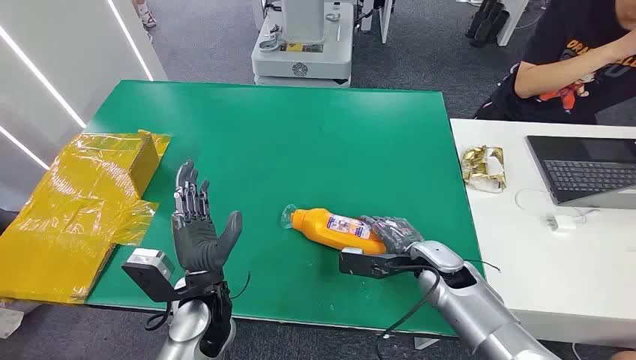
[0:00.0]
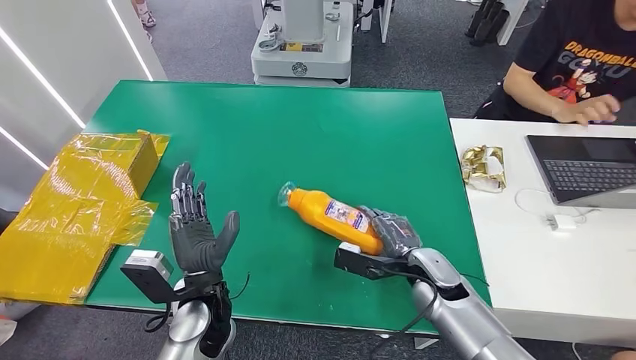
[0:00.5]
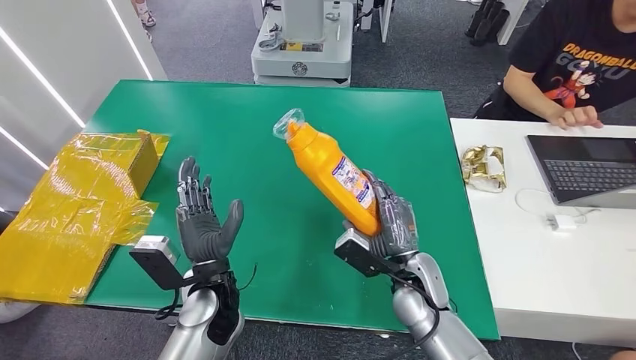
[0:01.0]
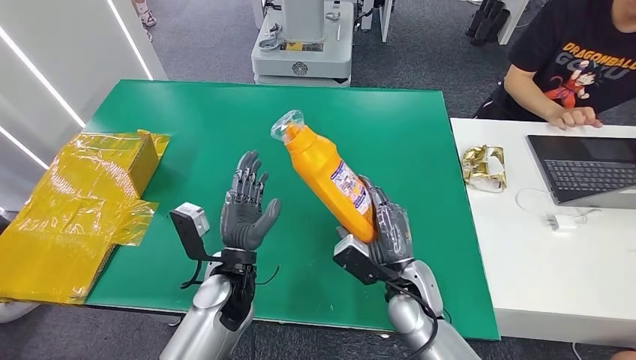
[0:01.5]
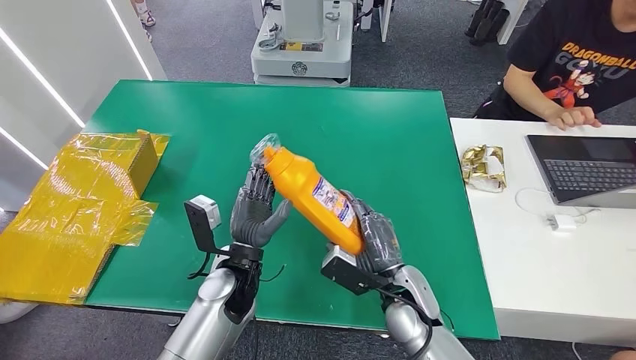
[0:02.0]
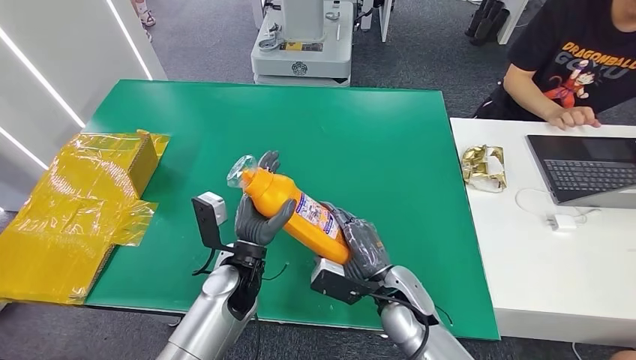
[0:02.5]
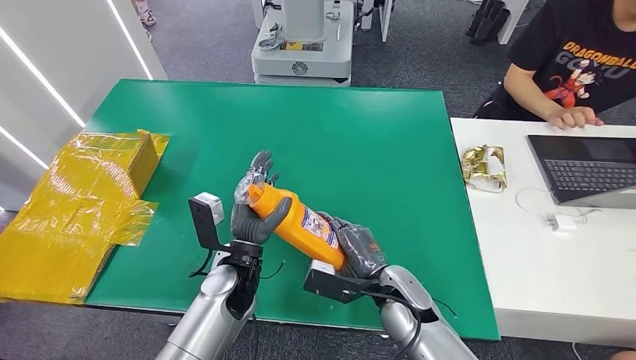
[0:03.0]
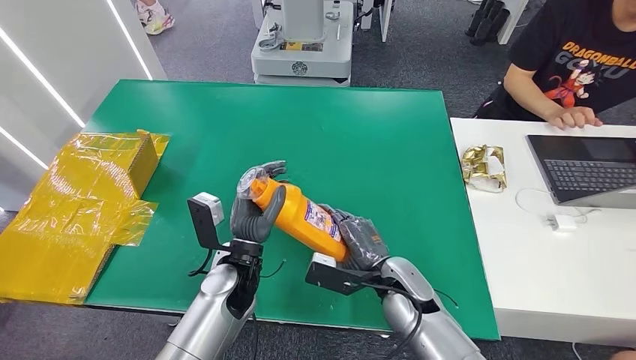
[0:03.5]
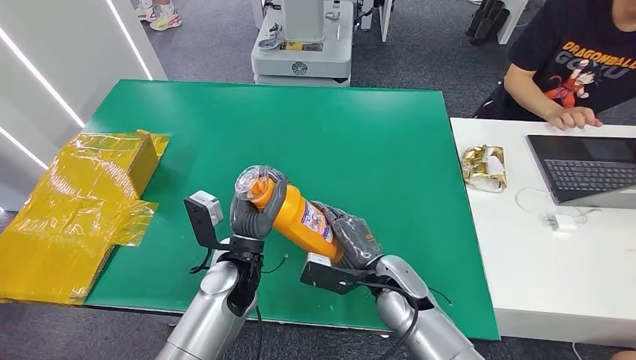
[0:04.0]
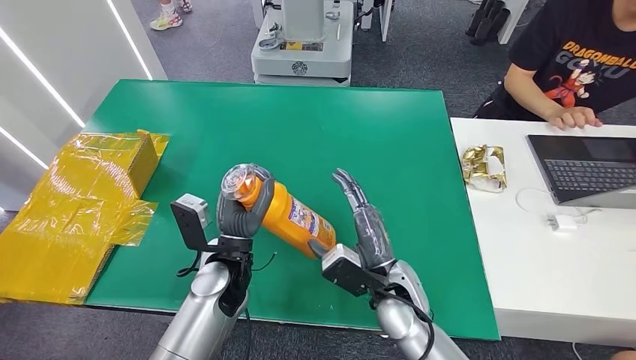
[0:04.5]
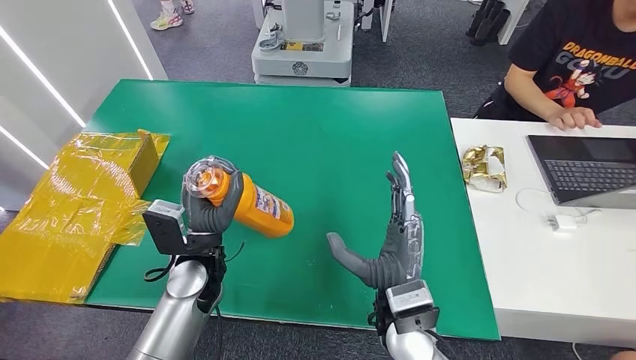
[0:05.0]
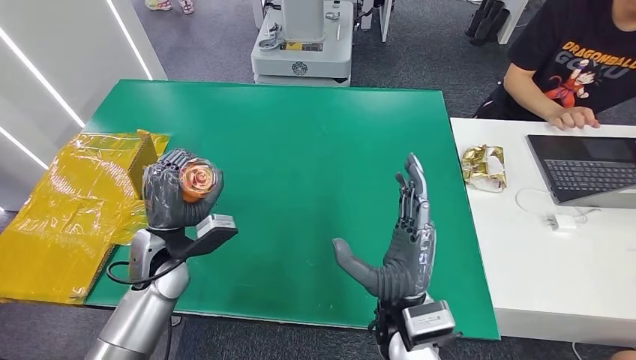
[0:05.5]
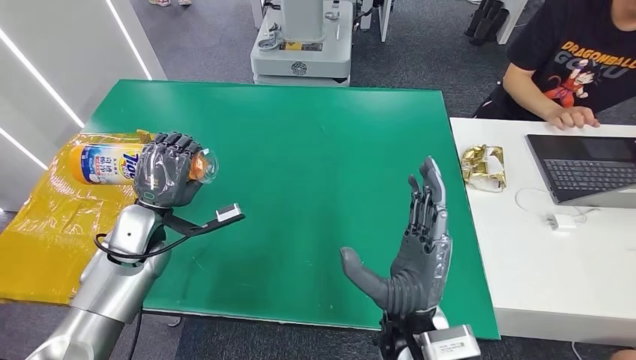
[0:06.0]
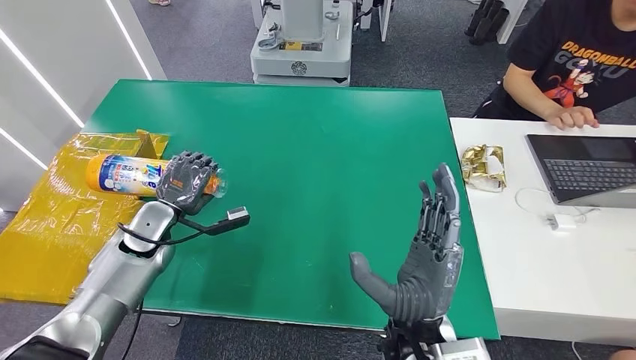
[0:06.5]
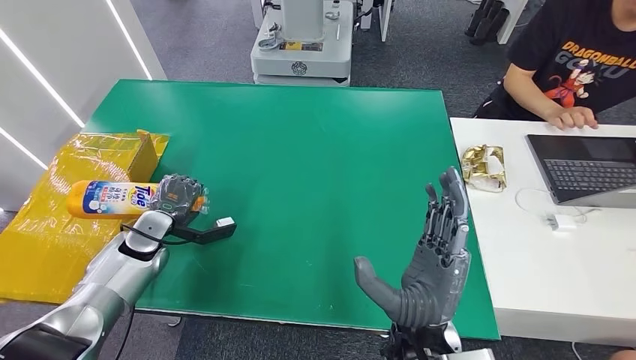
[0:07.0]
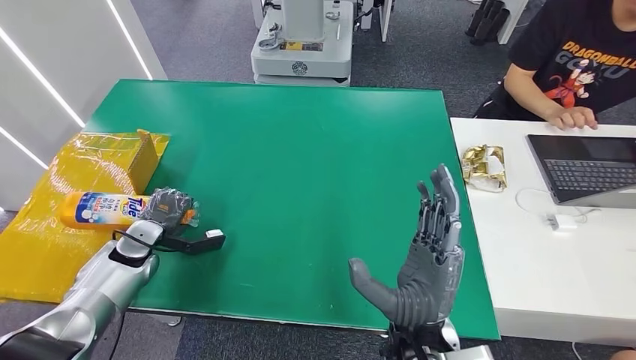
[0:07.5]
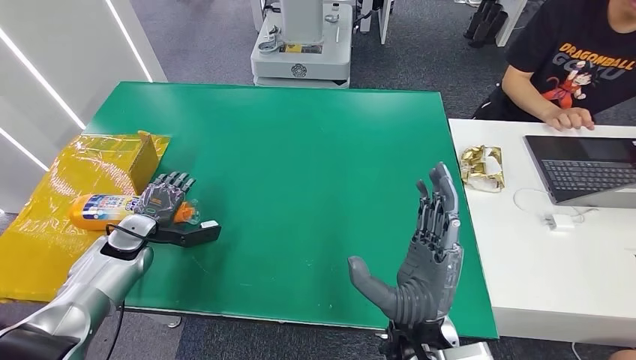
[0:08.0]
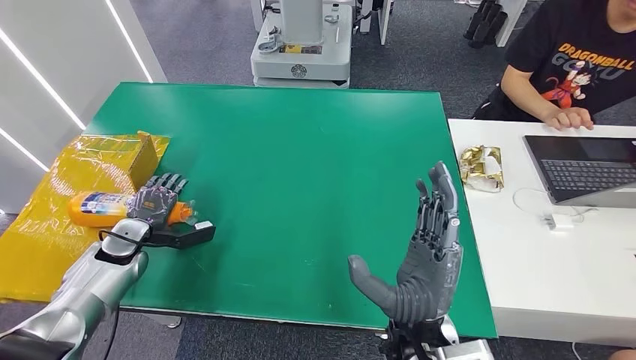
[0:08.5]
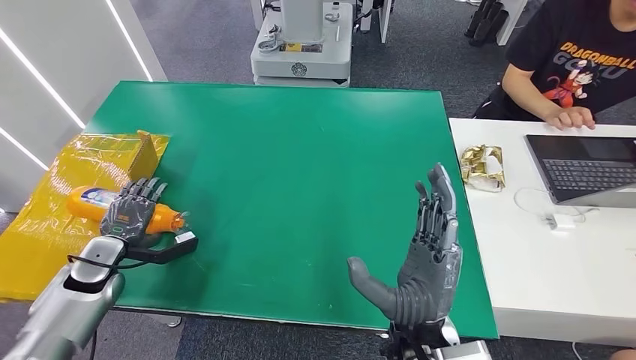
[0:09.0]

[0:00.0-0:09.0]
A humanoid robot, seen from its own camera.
Step, 0:00.0 to 0:02.0: Pick up the bottle from the table.
Step, 0:02.5 to 0:09.0: Turn the bottle to the front side.
0:02.0 to 0:04.5: There are only small adjustments of the hands.
0:04.5 to 0:07.0: The left hand shifts roughly 20 cm to the left. Meanwhile the right hand heads backward and upward, covering some 10 cm.
0:07.0 to 0:09.0: The left hand is displaced backward and to the left by approximately 10 cm.

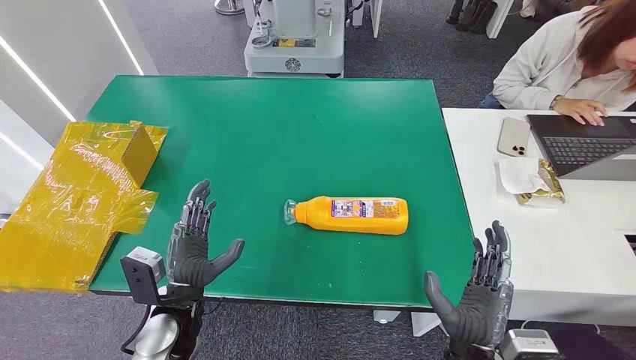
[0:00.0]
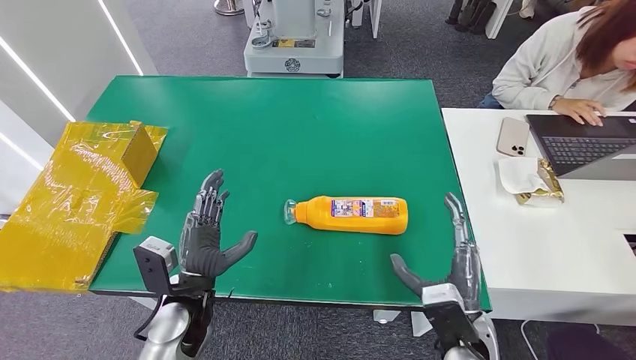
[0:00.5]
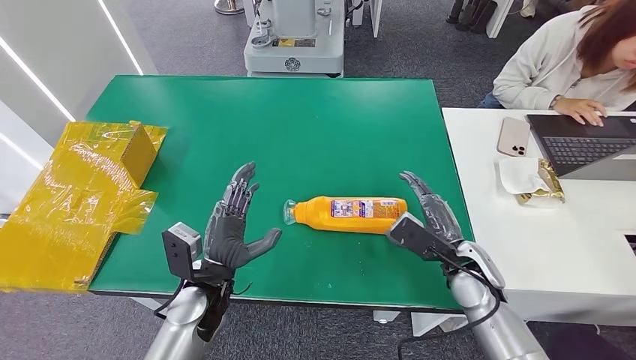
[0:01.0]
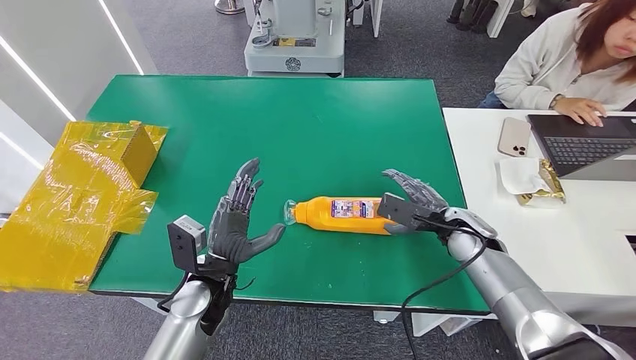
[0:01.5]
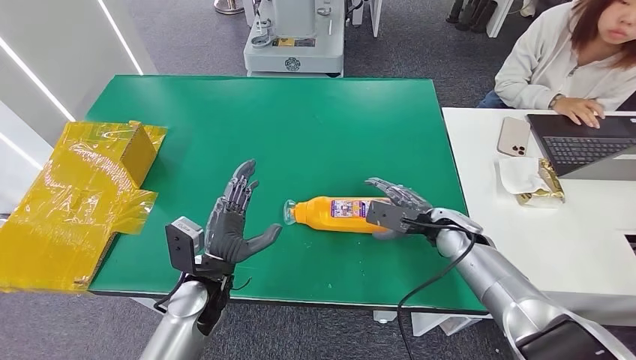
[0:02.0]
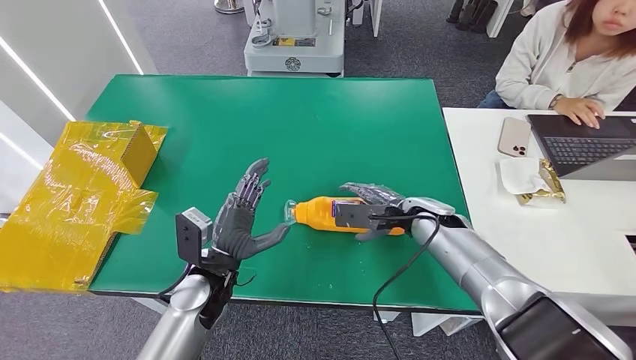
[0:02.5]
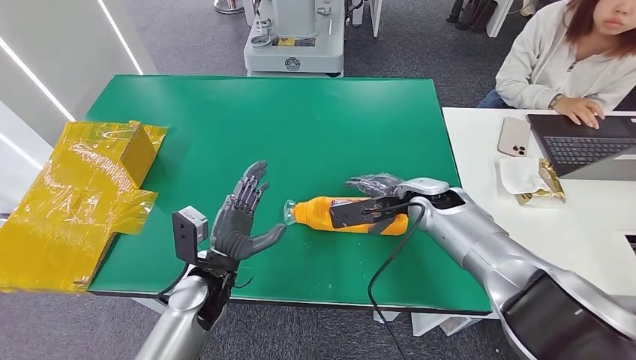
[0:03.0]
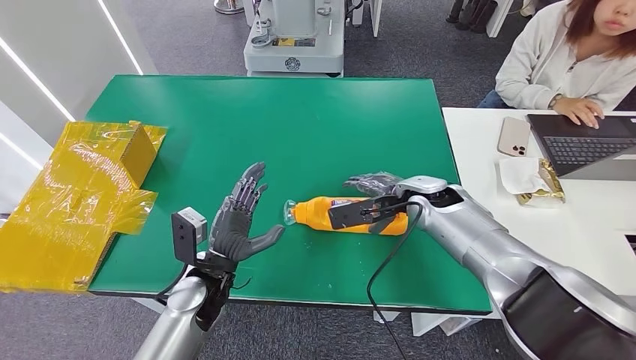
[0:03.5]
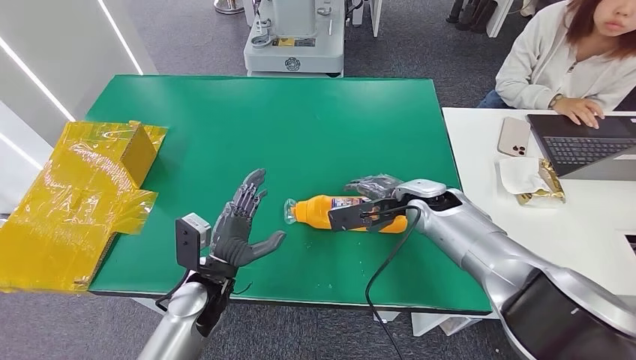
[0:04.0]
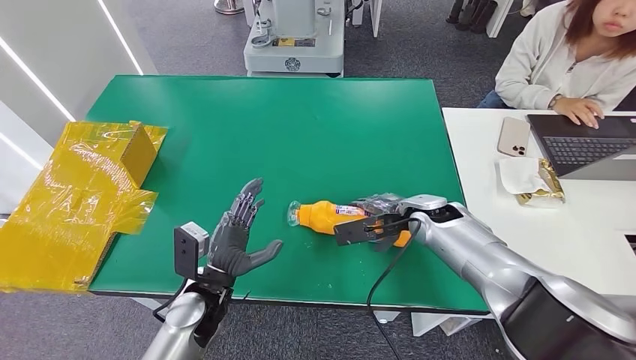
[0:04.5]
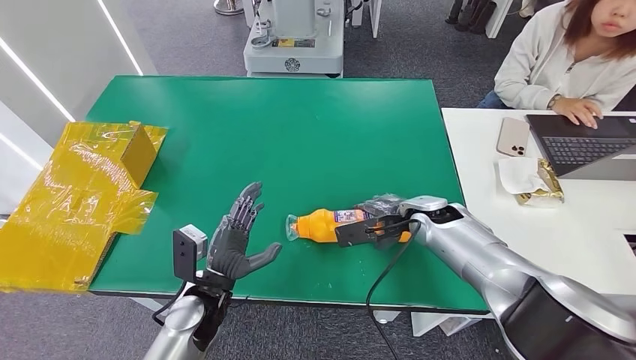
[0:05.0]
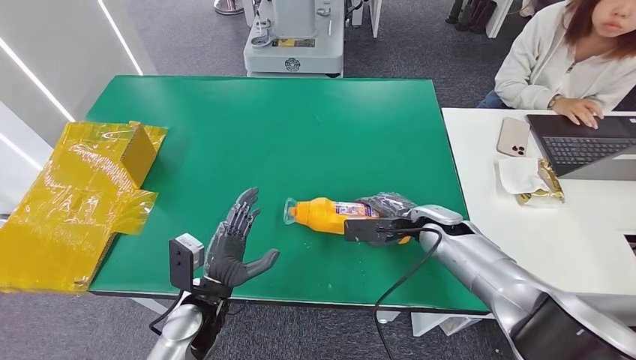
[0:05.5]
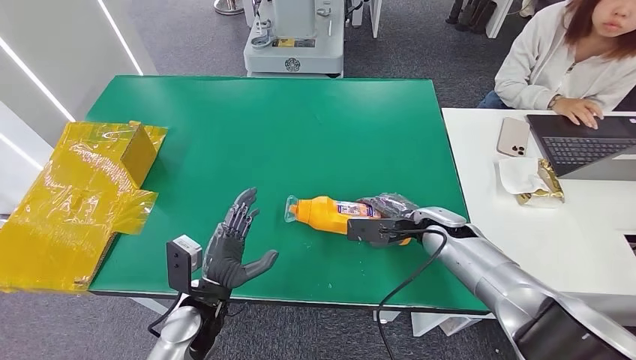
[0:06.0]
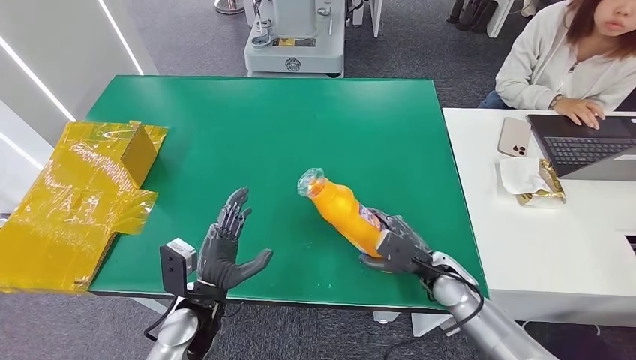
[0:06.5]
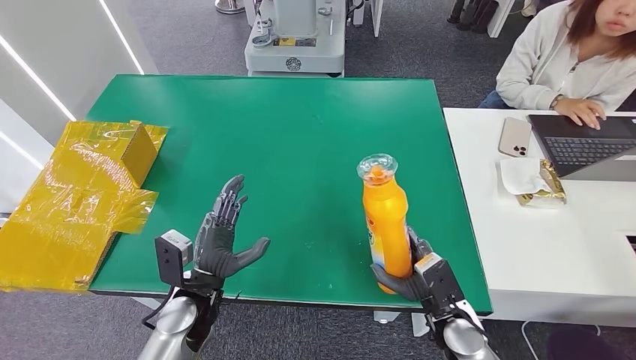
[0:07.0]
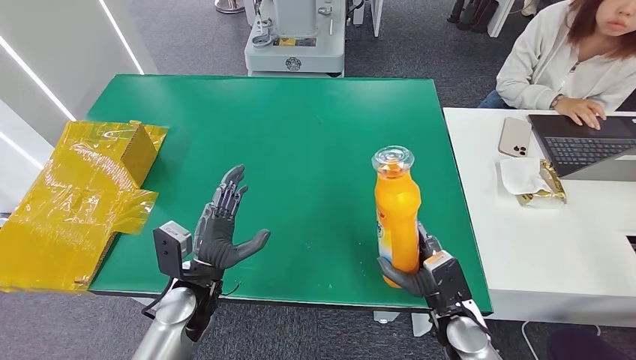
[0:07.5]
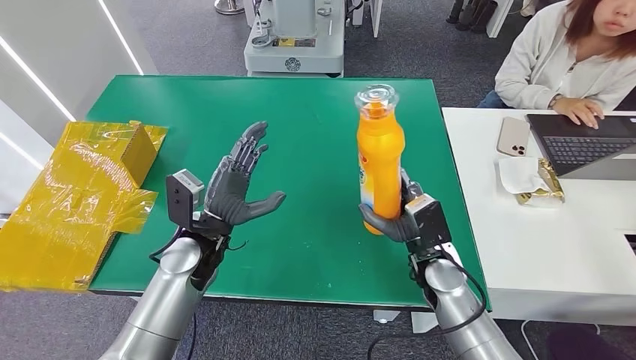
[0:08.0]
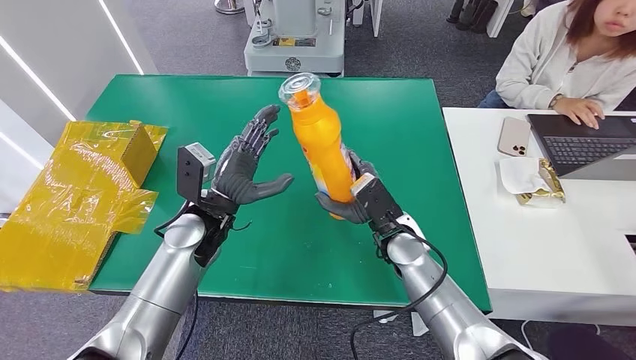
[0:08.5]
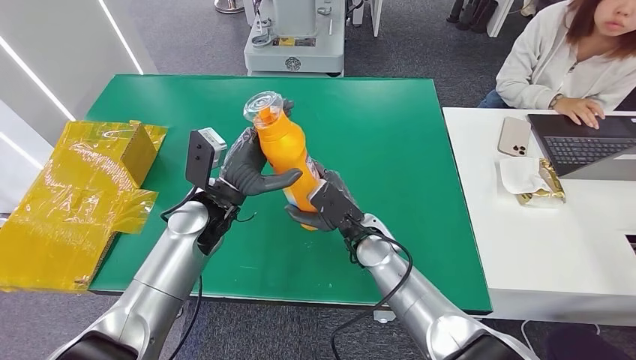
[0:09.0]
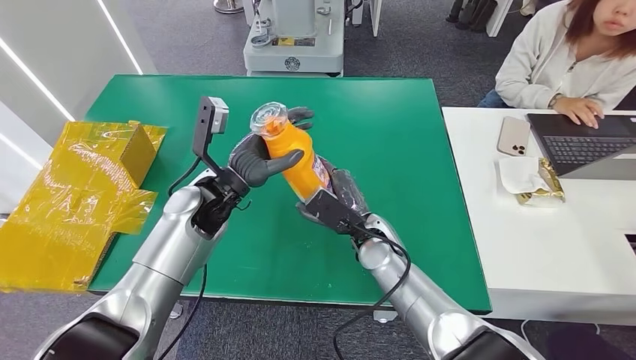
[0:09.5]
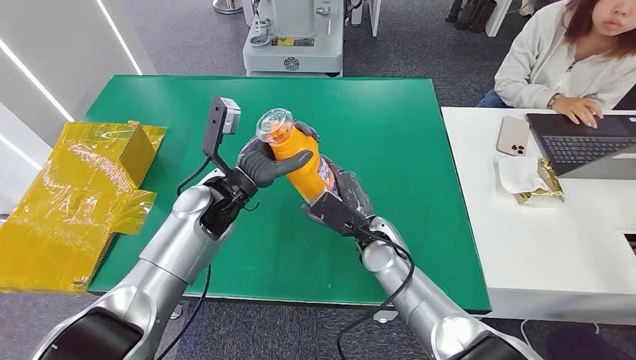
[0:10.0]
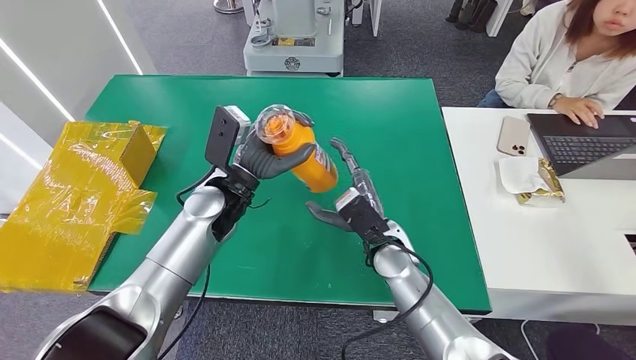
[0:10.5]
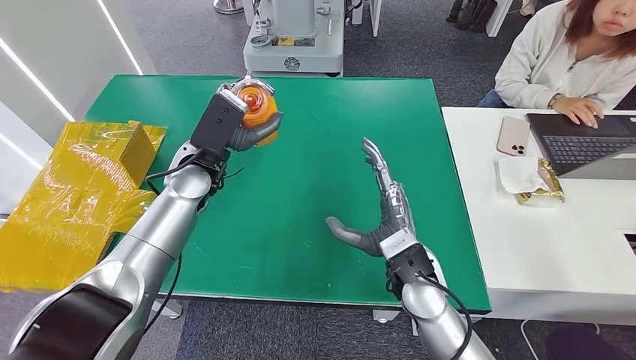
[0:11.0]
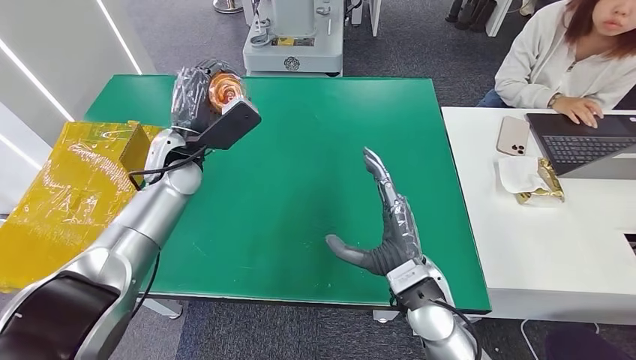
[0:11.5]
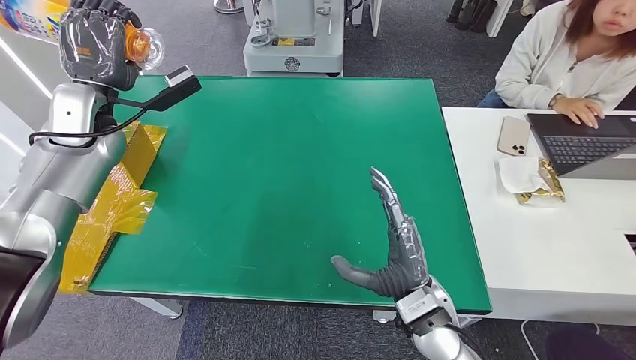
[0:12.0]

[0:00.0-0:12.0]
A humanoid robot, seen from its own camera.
Step, 0:00.0 to 0:05.5: Pick up the bottle from the table.
0:02.0 to 0:04.0: The right hand goes about 10 cm to the left and upward.
0:04.0 to 0:06.0: The right hand shifts some 5 cm downward.
0:06.0 to 0:08.0: The right hand travels backward by some 5 cm; the left hand is displaced forward and upward by roughly 15 cm.
0:08.0 to 0:10.0: The left hand goes about 10 cm forward and upward. The right hand heads to the left, covering approximately 10 cm.
